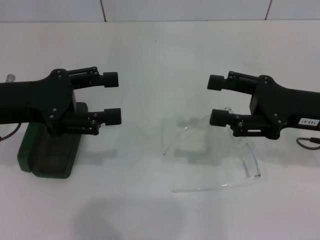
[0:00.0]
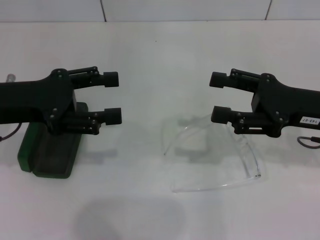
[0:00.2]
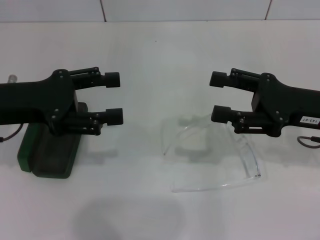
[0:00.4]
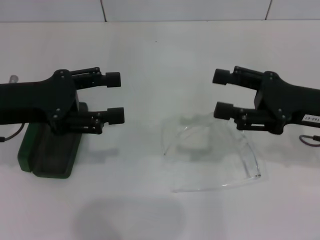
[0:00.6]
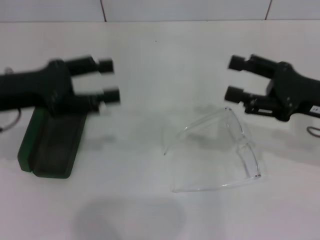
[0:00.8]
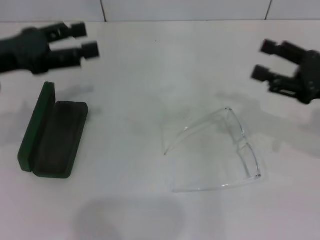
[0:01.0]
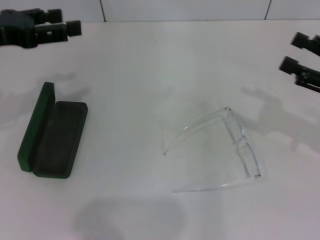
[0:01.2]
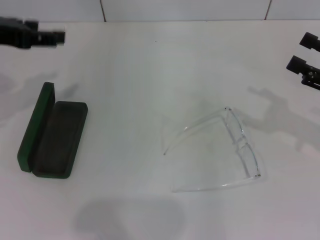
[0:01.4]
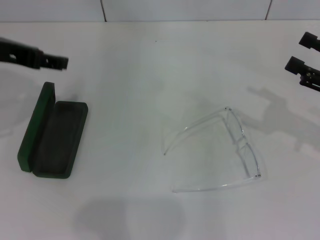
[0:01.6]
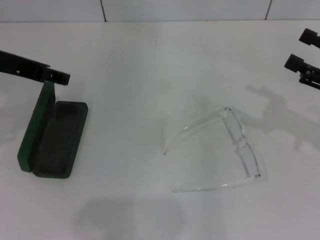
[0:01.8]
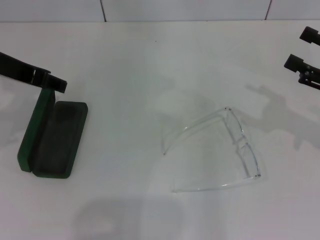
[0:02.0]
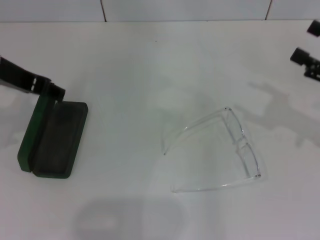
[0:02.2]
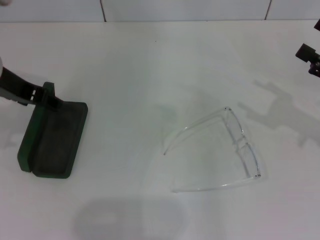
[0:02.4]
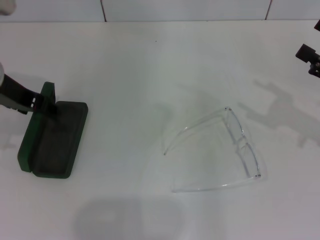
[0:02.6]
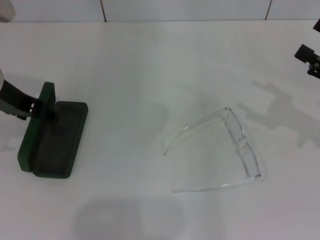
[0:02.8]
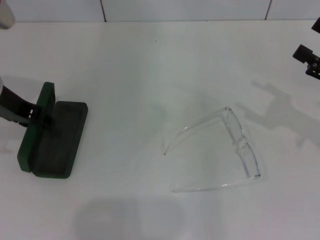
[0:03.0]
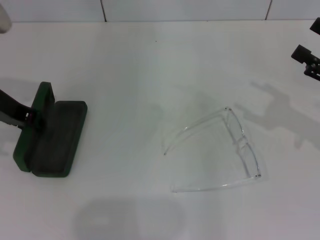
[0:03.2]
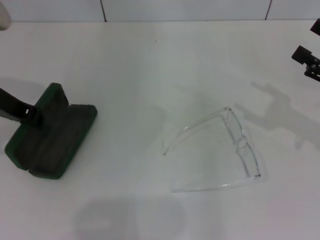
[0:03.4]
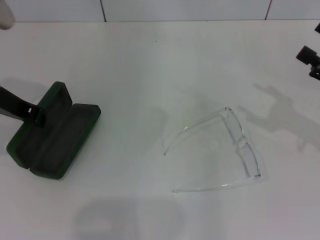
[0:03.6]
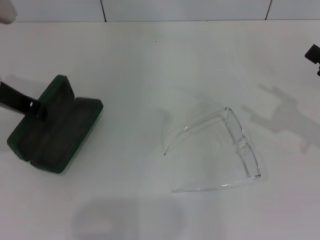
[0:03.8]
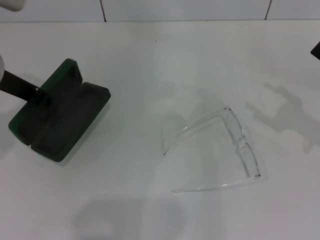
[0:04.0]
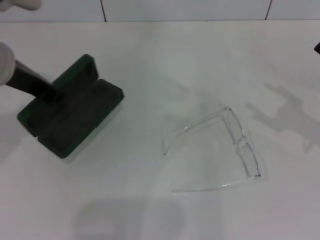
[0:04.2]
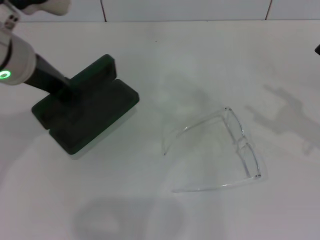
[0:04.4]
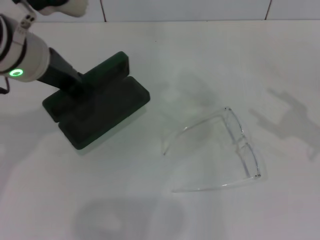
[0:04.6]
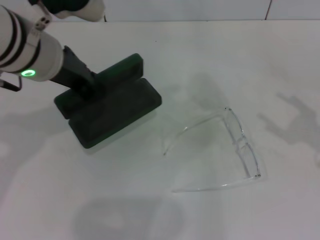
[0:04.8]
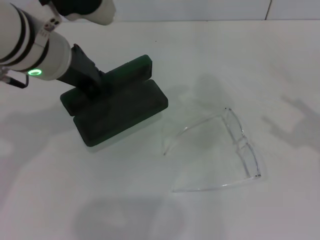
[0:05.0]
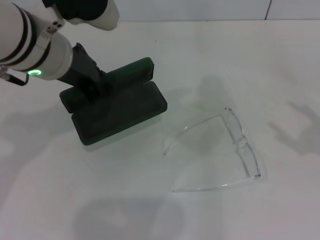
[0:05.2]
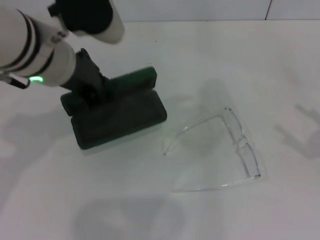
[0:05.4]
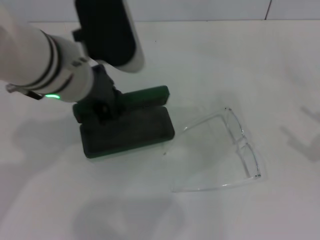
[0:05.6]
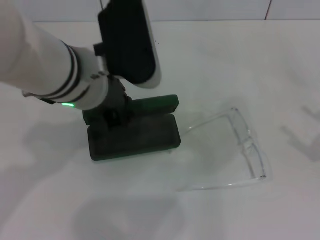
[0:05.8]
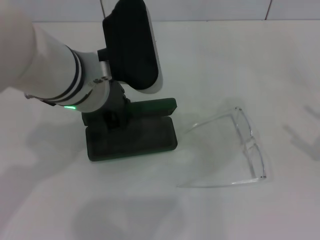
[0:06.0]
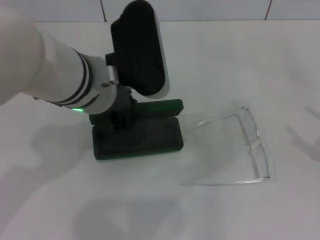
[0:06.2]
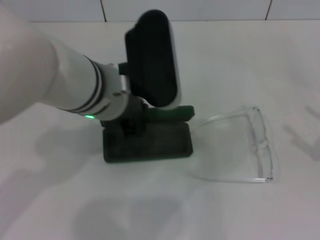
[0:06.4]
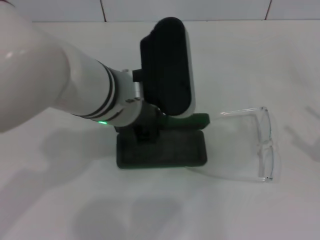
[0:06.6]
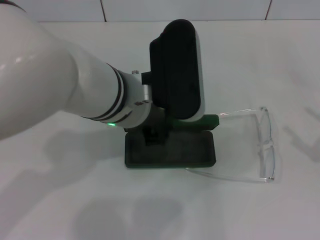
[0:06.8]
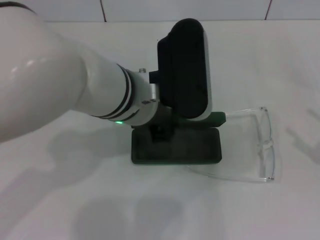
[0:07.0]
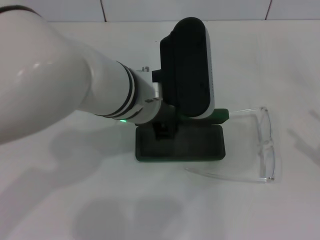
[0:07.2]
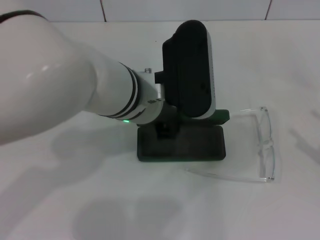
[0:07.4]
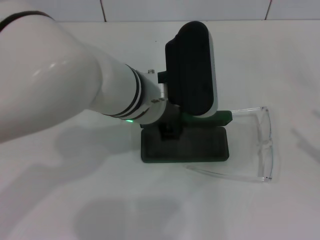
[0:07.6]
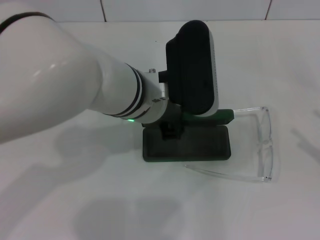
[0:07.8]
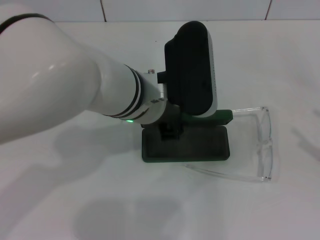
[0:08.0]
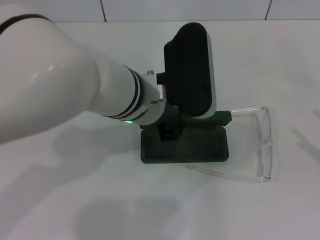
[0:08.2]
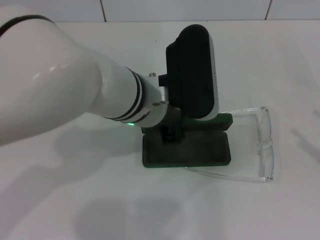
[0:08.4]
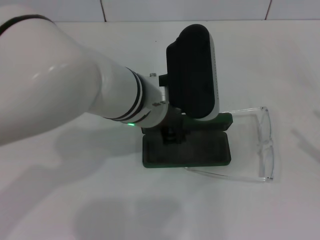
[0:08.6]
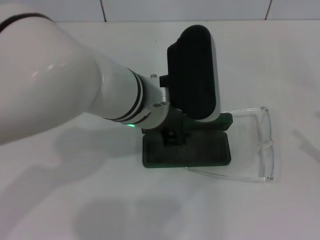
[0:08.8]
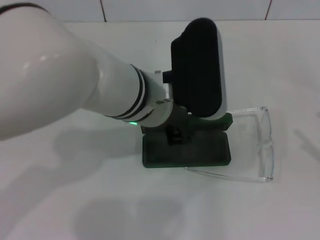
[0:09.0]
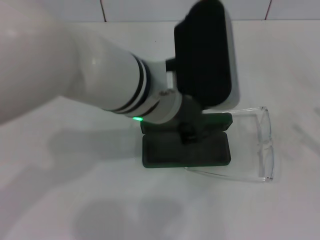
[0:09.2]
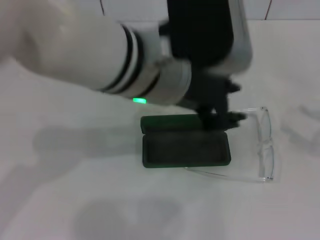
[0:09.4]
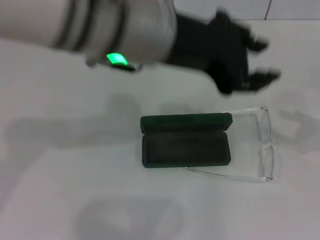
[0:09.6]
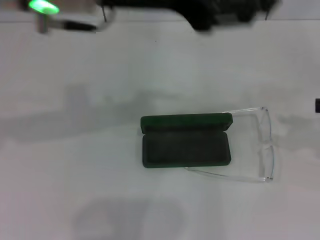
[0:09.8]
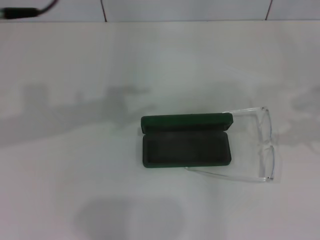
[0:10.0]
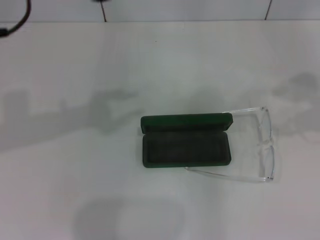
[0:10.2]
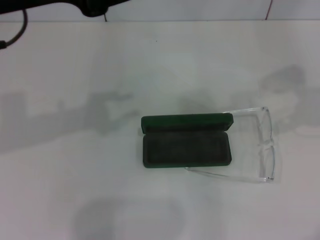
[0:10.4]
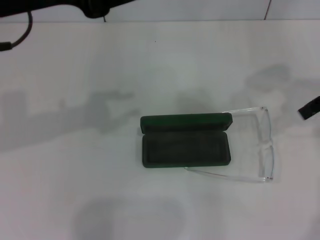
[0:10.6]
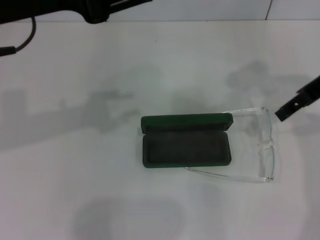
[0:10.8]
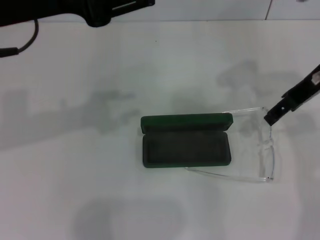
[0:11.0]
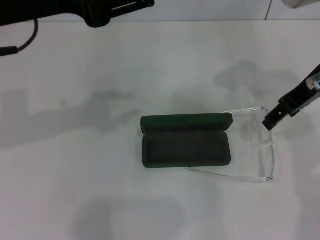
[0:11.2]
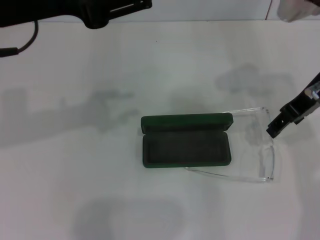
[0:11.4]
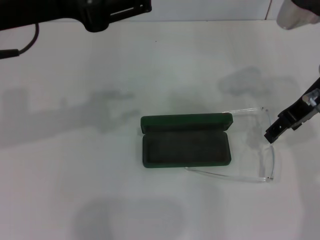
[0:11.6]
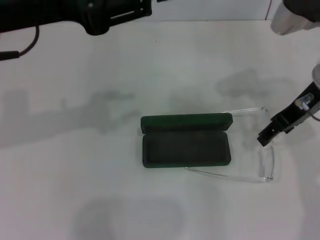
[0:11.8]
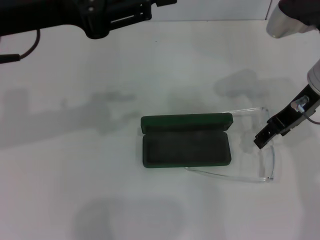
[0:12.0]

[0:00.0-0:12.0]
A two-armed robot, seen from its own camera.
Step, 0:00.0 to 0:03.2: Grab the glasses case with your left hand.
Step, 0:03.4 to 0:08.6: Place the glasses case in the center of the table with your left hand.
0:00.0 to 0:01.6: The right gripper goes roughly 10 cm to the right; the left gripper travels upward by some 10 cm.
0:01.6 to 0:03.0: The left gripper goes about 5 cm downward.
0:03.0 to 0:04.4: The left gripper is displaced to the right by about 5 cm, and closes its fingers.
0:04.4 to 0:06.0: The left gripper travels to the right by some 10 cm. Meanwhile the right gripper shifts roughly 5 cm backward.
0:06.0 to 0:07.6: The left gripper shifts approximately 5 cm to the right.
0:07.6 to 0:09.0: The grippers move only a little.
0:09.0 to 0:10.4: The left gripper is displaced to the left and upward by roughly 20 cm. Meanwhile the right gripper heads upward, forward and to the left, covering roughly 25 cm.
0:10.4 to 0:12.0: The right gripper travels downward and to the left by about 15 cm.

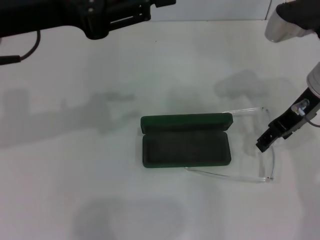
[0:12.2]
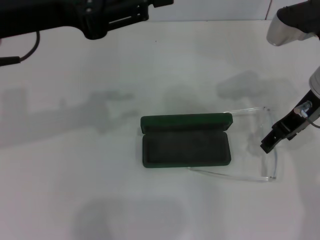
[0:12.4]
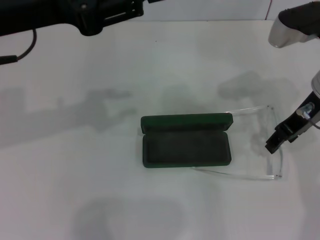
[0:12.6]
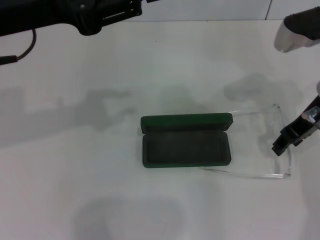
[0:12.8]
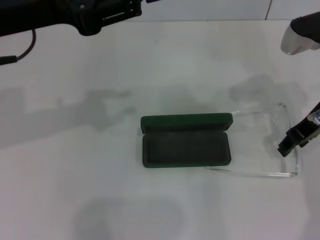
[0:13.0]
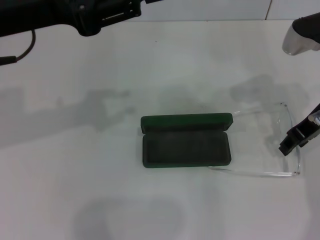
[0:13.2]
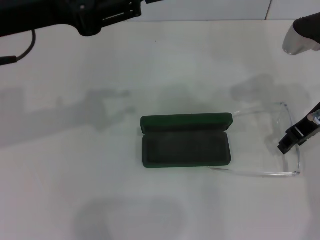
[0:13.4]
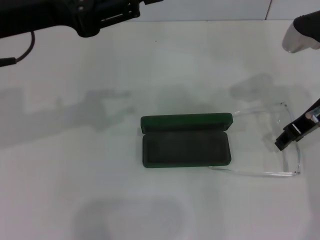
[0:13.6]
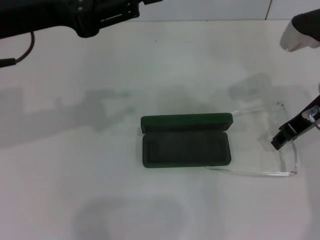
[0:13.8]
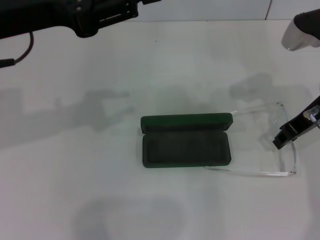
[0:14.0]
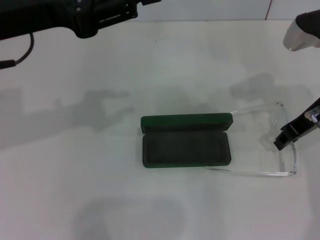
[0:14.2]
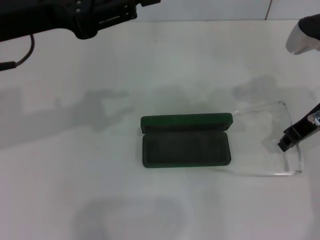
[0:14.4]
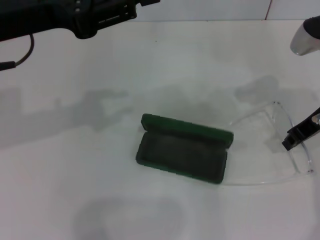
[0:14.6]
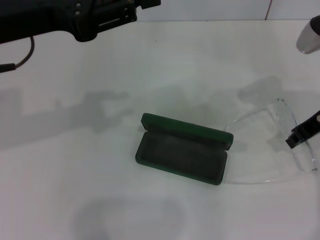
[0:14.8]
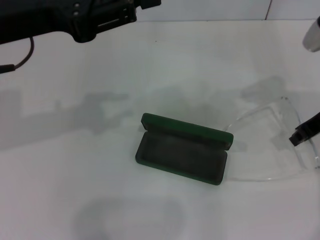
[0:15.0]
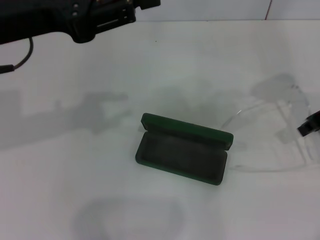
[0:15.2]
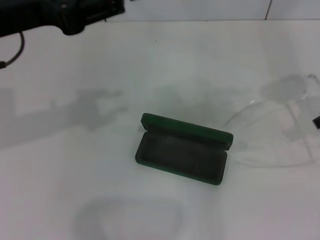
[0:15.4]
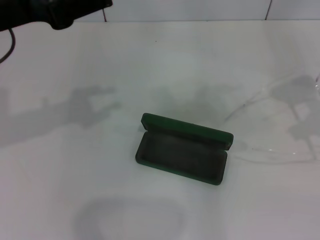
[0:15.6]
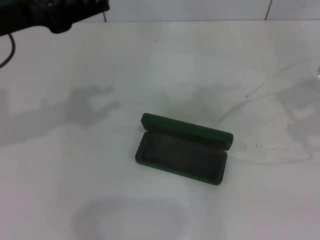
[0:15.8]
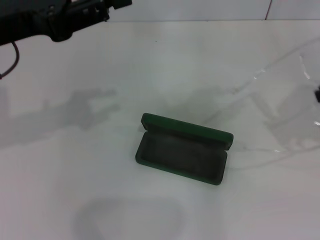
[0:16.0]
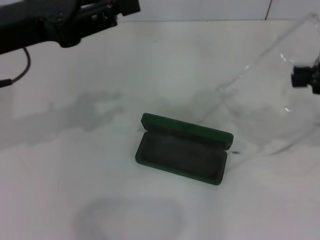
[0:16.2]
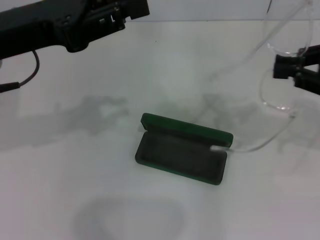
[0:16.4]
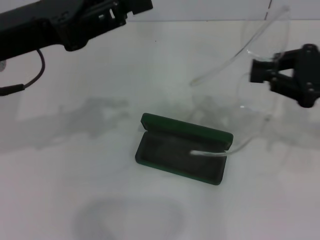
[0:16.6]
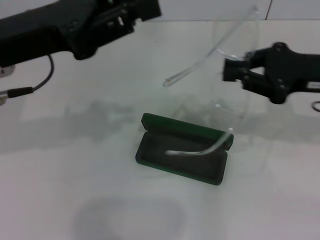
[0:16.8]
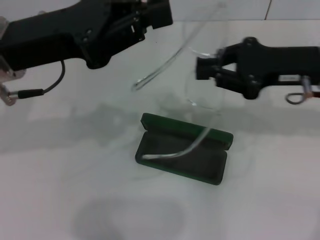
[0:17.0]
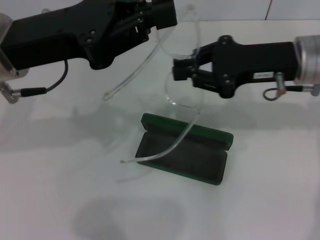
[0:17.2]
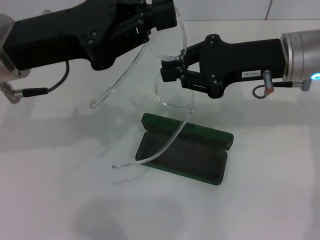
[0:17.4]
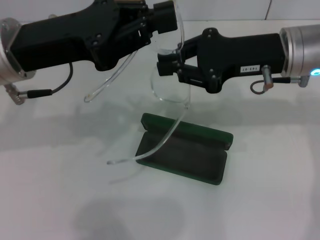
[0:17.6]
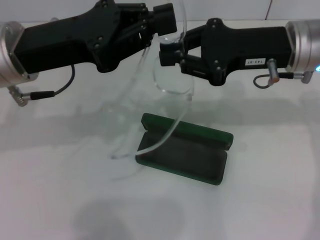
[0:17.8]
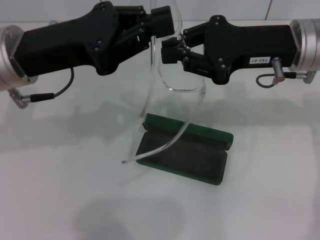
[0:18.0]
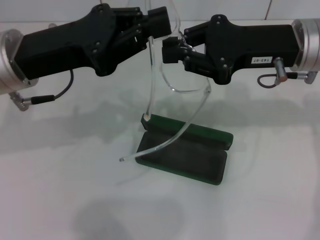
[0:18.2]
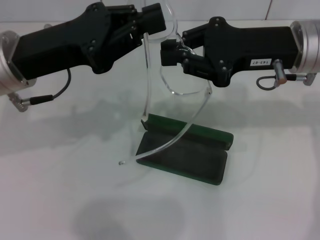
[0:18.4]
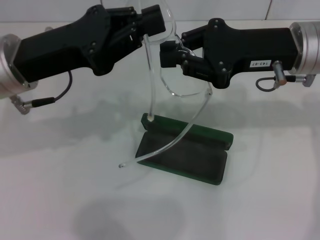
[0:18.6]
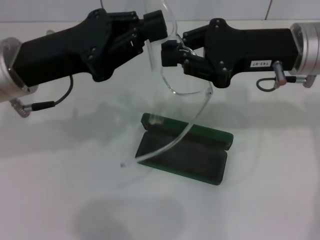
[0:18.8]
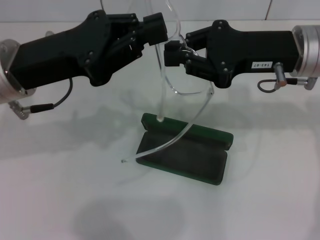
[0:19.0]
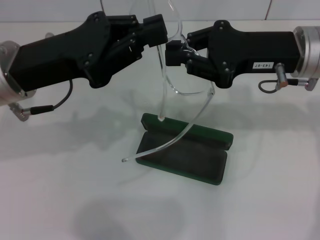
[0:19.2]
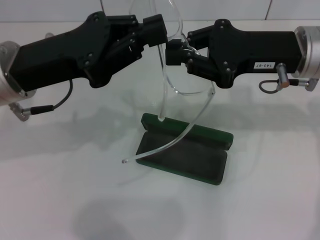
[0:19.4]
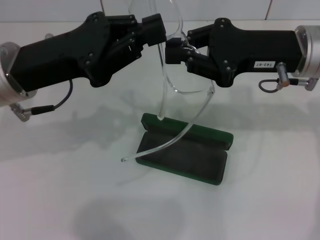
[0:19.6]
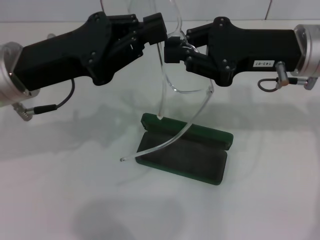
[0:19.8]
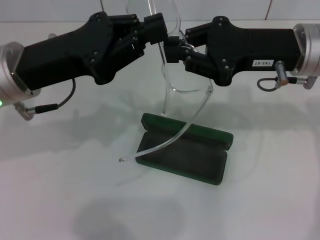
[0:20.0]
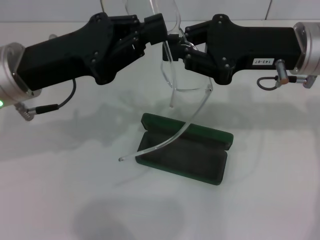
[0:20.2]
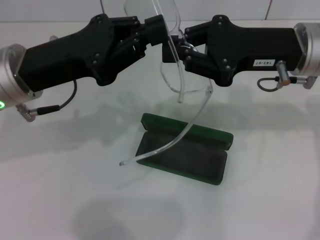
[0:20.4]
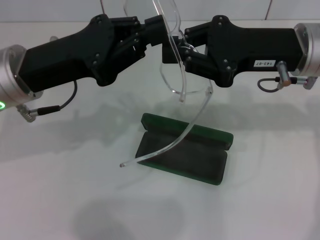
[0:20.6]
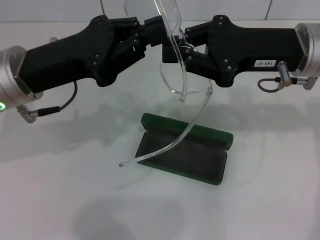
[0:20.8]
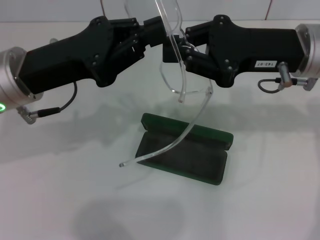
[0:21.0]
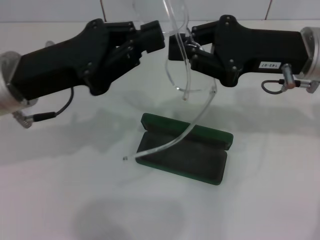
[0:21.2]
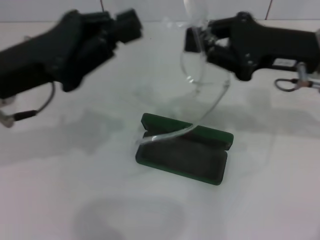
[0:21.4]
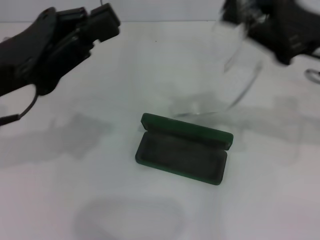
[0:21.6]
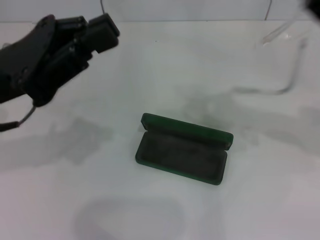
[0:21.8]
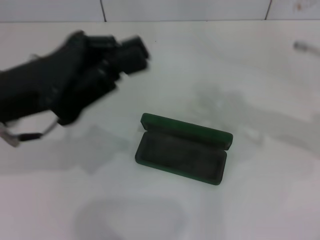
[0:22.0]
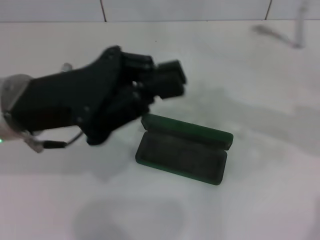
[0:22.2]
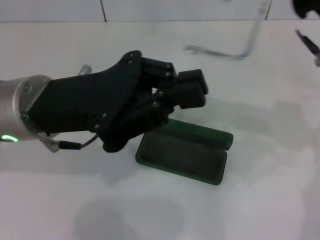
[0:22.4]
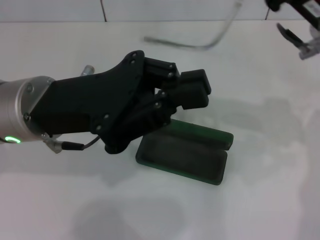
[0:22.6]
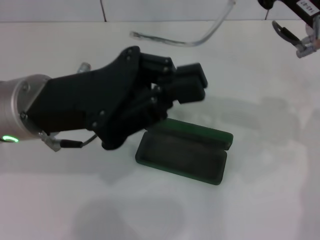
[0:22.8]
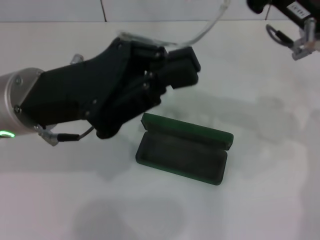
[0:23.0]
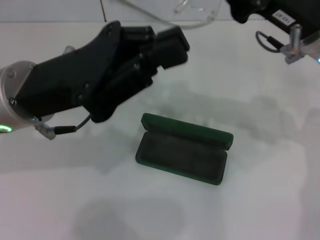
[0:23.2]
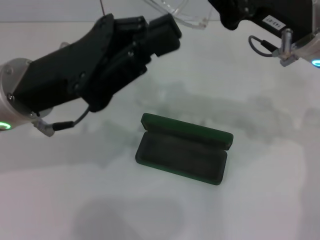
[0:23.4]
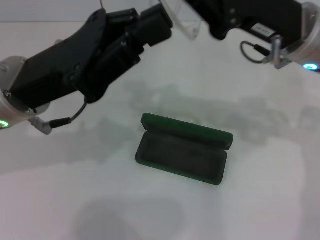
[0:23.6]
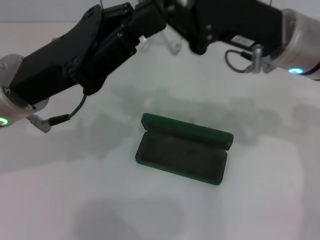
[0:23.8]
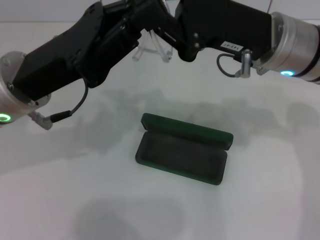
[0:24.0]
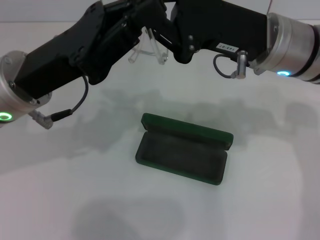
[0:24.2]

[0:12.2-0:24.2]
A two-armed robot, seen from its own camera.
0:12.2 to 0:13.8: The grippers move only a little.
0:13.8 to 0:15.2: The right gripper changes place by about 5 cm, and closes up.
0:16.6 to 0:18.2: The left gripper closes up; the right gripper heads to the left, covering some 10 cm.
0:18.2 to 0:19.8: Both grippers stay put.
0:19.8 to 0:21.2: Both grippers stay about where they are.
0:21.2 to 0:22.6: The right gripper reaches about 5 cm to the right, then returns.
0:22.6 to 0:24.2: The right gripper travels to the left by roughly 5 cm.
